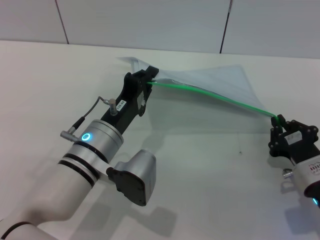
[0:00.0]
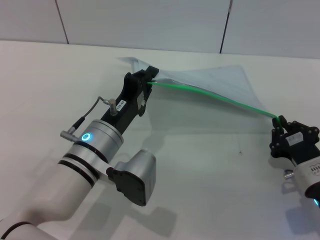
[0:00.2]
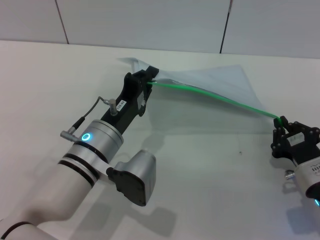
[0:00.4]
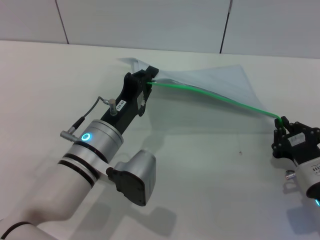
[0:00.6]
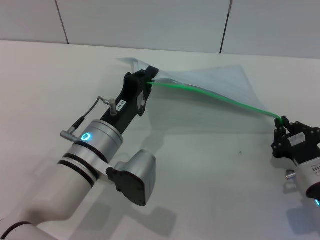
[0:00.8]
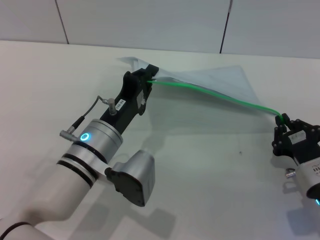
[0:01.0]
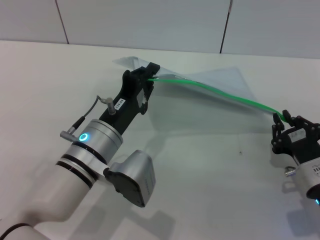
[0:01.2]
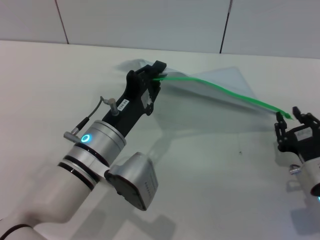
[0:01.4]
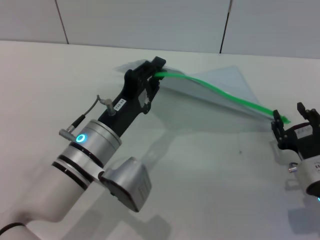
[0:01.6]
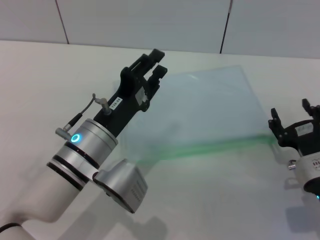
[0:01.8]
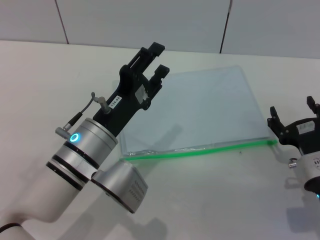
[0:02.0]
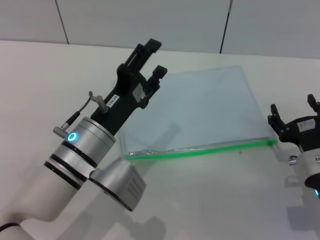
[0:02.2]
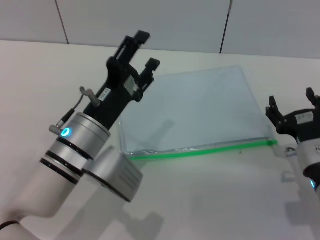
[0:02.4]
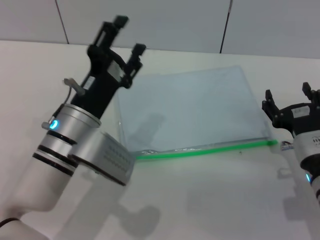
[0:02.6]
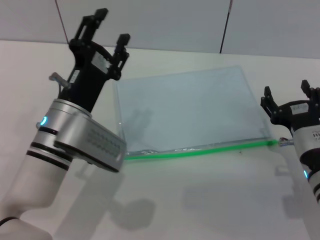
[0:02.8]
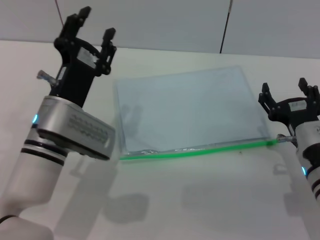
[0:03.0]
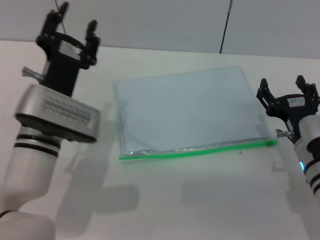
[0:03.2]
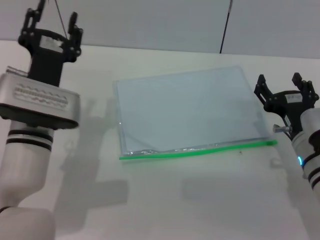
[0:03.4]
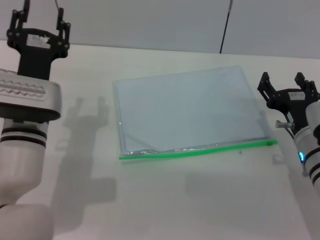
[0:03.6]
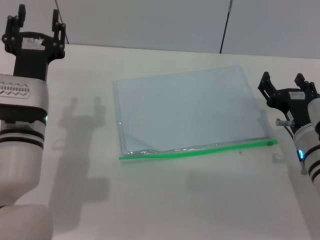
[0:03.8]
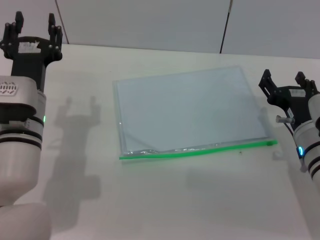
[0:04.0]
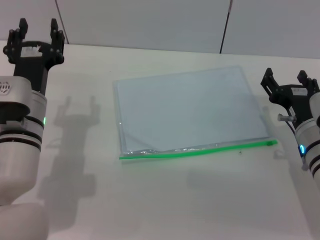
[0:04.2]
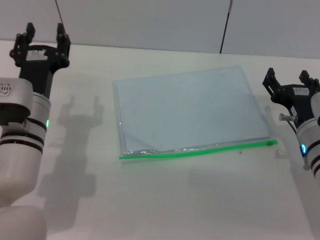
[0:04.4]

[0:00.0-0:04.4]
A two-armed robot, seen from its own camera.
Step, 0:01.6 to 0:02.0: Place the transparent plastic bag.
0:00.0 to 0:01.4: The grippers move only a little.
0:01.4 to 0:03.0: The left gripper changes place by roughly 5 cm, and opens its fingers. The right gripper ends up about 5 cm from where it was, and opens.
